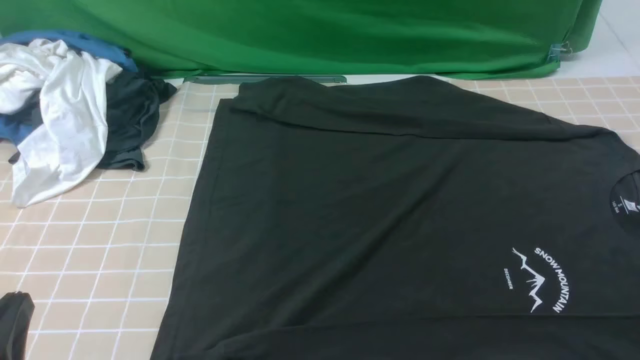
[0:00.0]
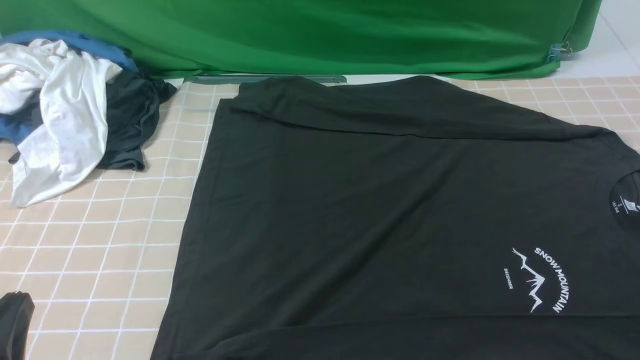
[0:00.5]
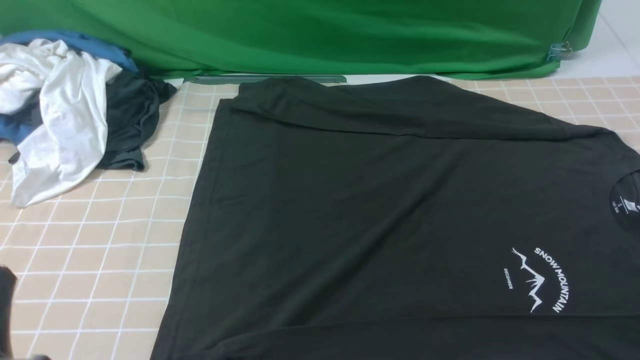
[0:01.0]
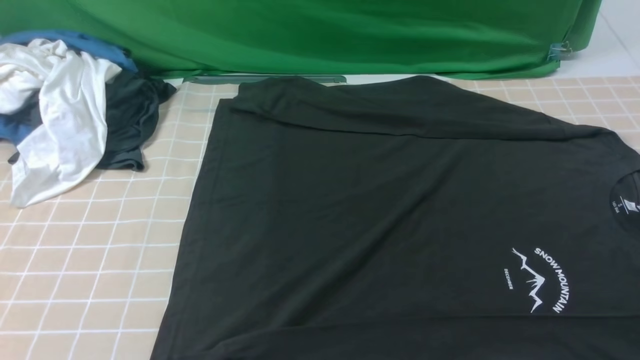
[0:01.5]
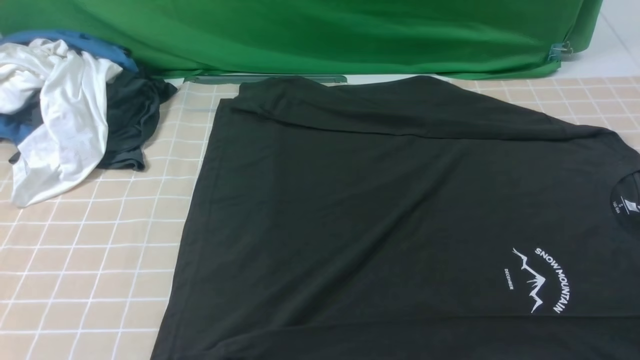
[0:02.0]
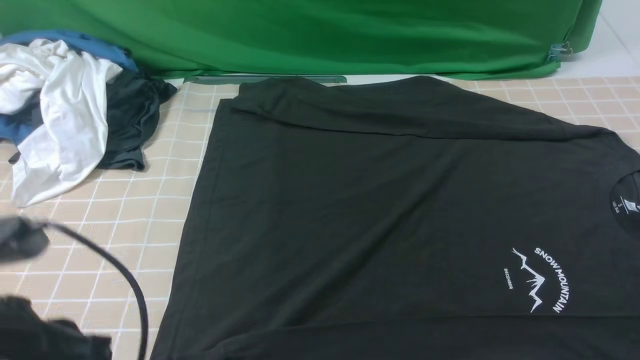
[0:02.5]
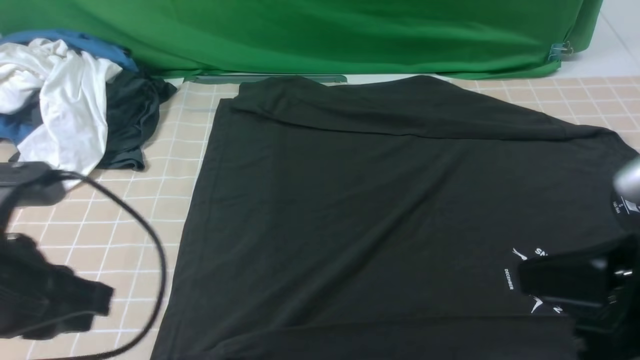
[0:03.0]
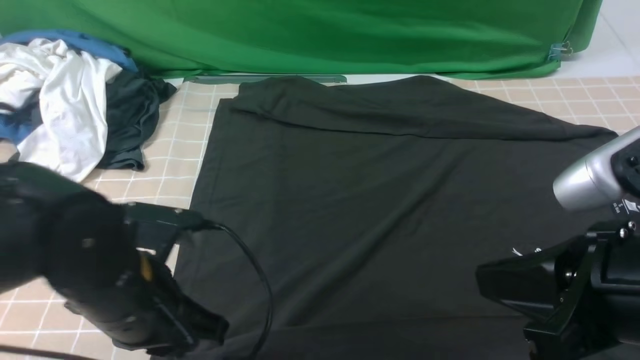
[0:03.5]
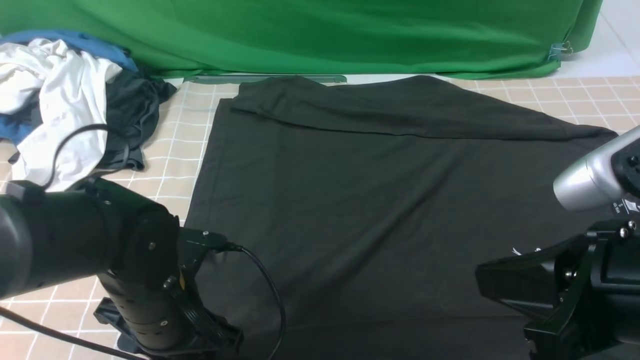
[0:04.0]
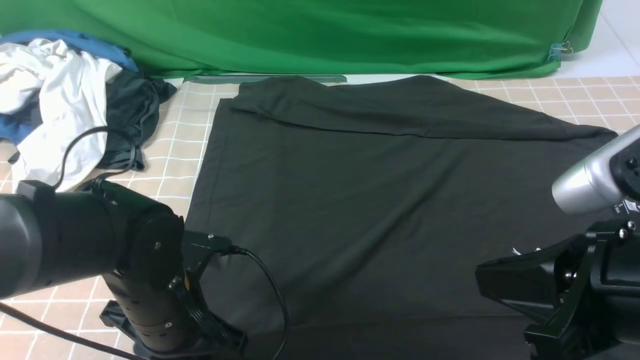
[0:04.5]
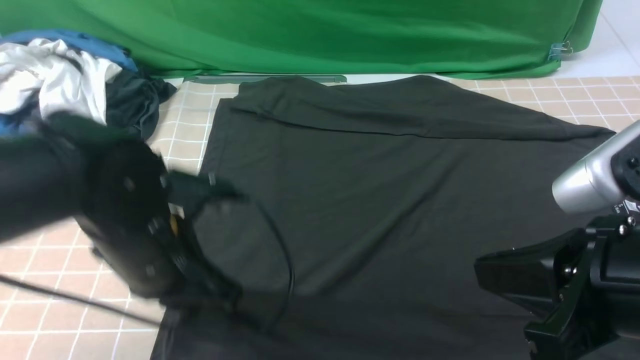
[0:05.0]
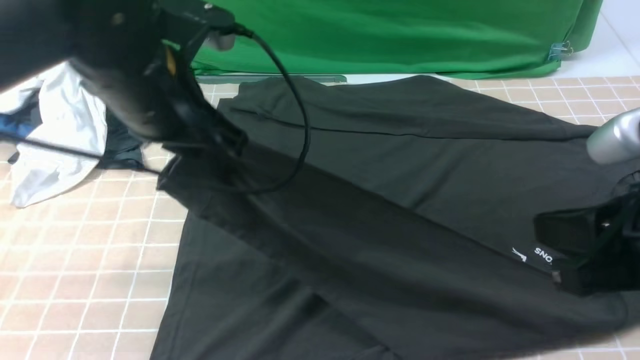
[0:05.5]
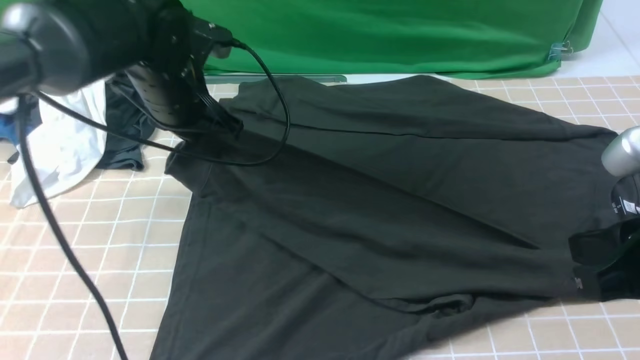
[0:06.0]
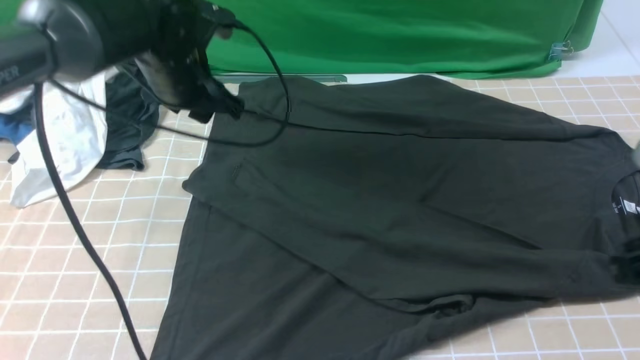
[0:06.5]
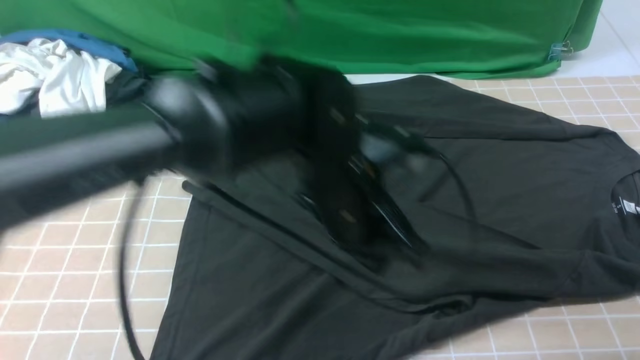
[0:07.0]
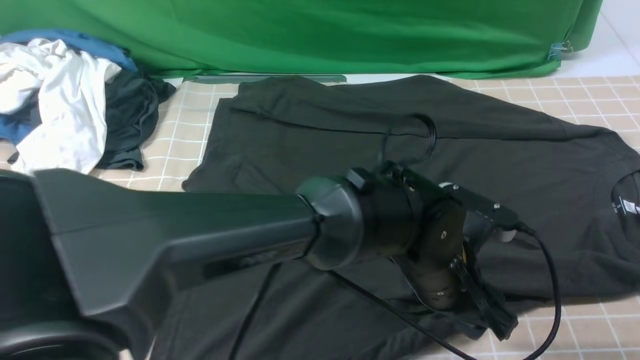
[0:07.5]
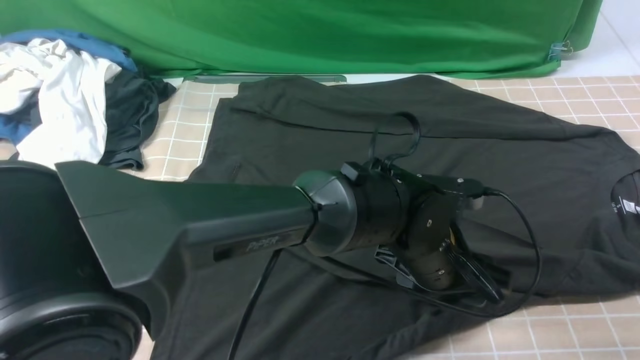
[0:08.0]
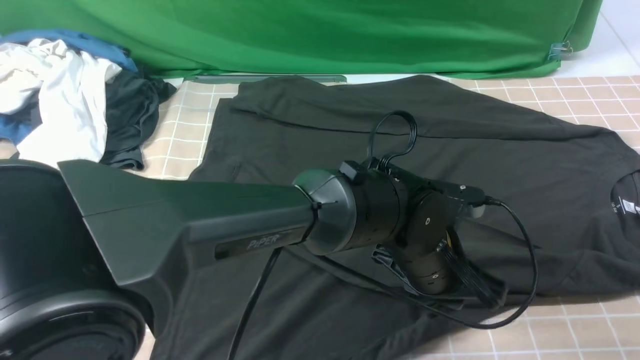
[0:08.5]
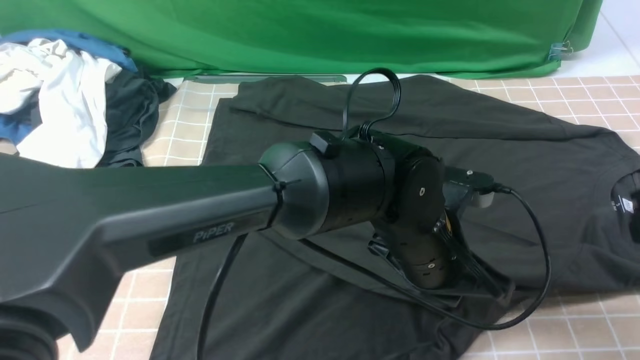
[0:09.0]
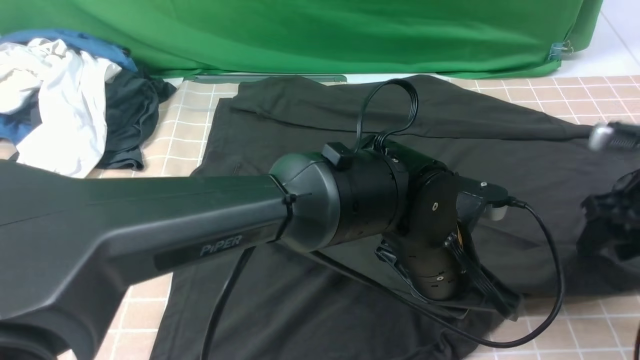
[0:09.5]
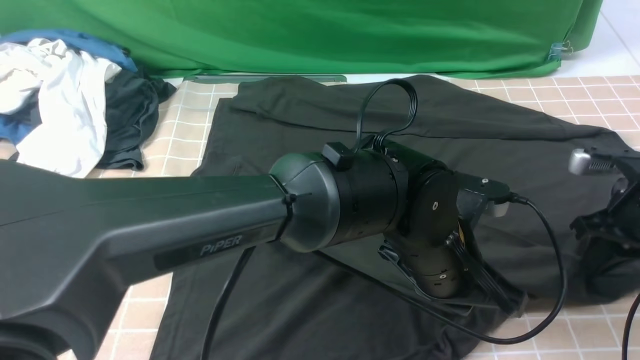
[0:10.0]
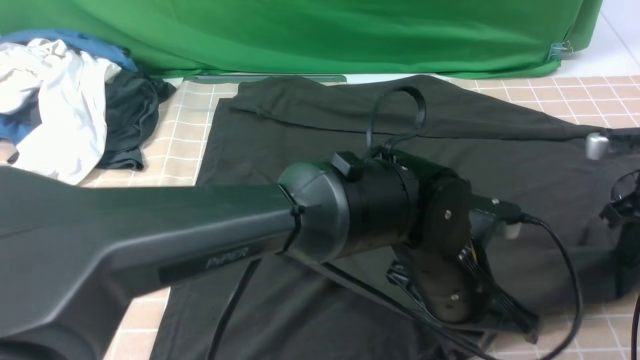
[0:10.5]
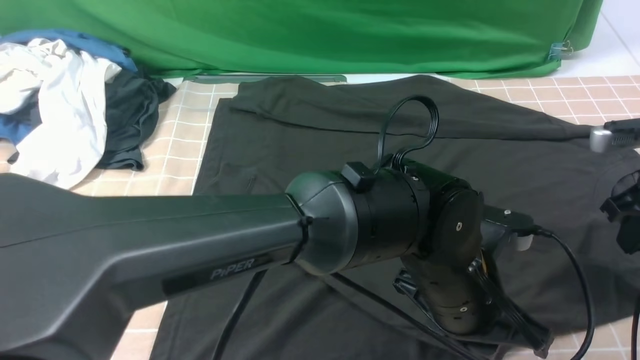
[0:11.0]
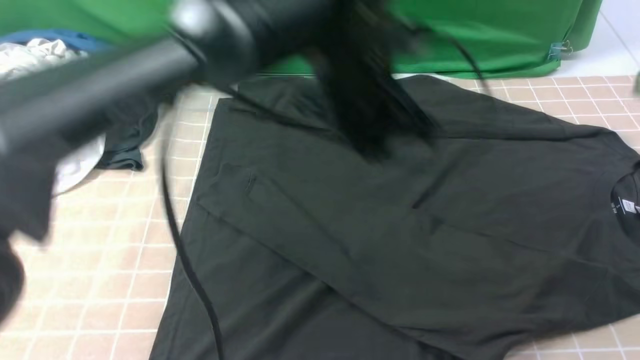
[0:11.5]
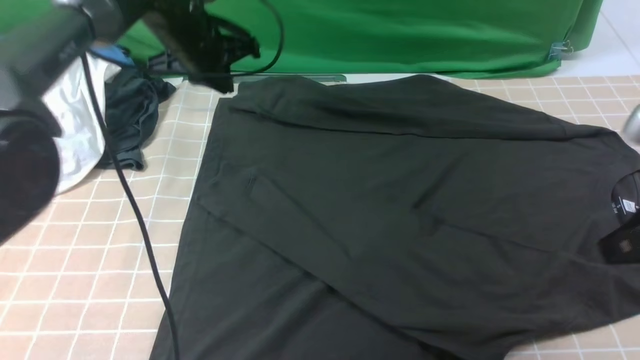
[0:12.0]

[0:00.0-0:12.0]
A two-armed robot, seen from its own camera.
Step, 0:00.0 to 0:04.5: use the left arm to clamp the cuff closest to it.
Step, 0:05.0 to 0:06.0: use the left arm to drag and place the cuff at the centered position on the left edge of the fabric.
0:00.0 to 0:02.0: The left gripper is displaced upward by some 20 cm.
0:02.0 to 0:04.0: The right gripper moves to the left, upward and forward, some 15 cm, and closes its fingers; the left gripper goes some 25 cm downward, forward and to the right, and opens its fingers.
0:04.0 to 0:06.0: The left gripper heads forward and upward, covering roughly 20 cm, and closes its fingers, while the right gripper ends up some 5 cm from where it was.
0:06.0 to 0:08.0: The left gripper shifts roughly 30 cm to the right, backward and downward, and opens. The right gripper moves to the right and forward, approximately 10 cm.
0:08.0 to 0:10.0: The right gripper moves forward and downward, about 15 cm, and opens, then closes once more; the left gripper closes its fingers.
0:10.0 to 0:12.0: The left gripper moves forward and to the left, about 35 cm, while the right gripper goes roughly 20 cm upward, backward and to the left.

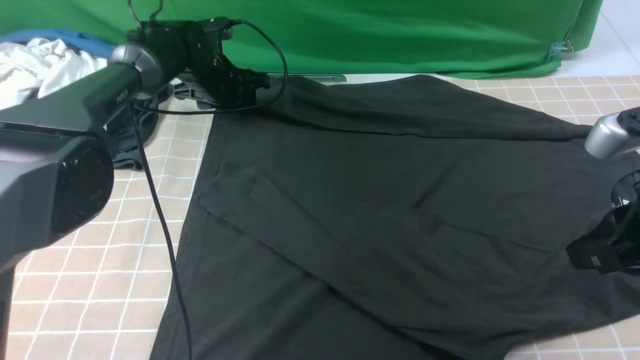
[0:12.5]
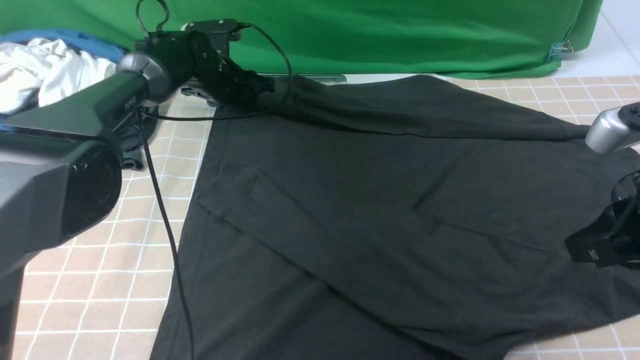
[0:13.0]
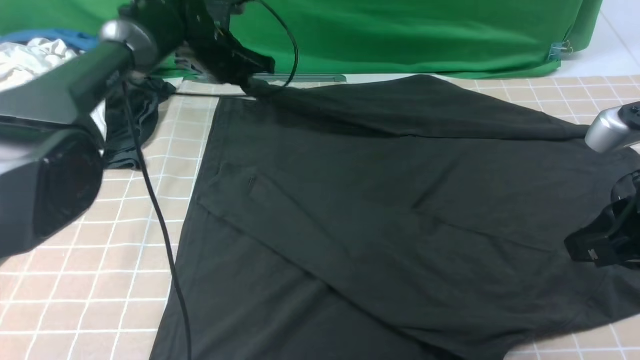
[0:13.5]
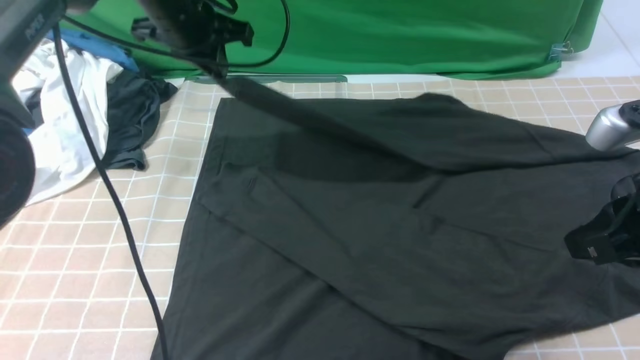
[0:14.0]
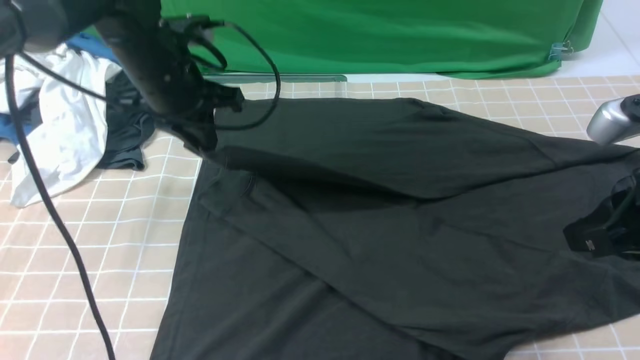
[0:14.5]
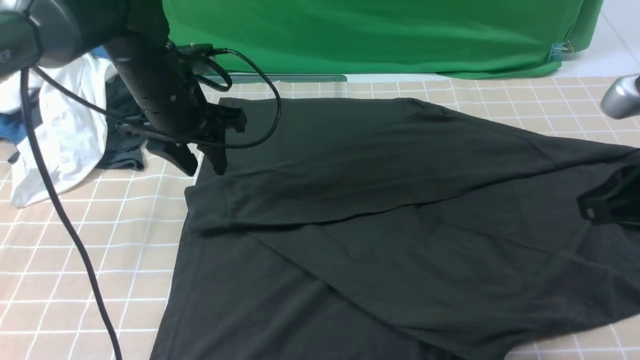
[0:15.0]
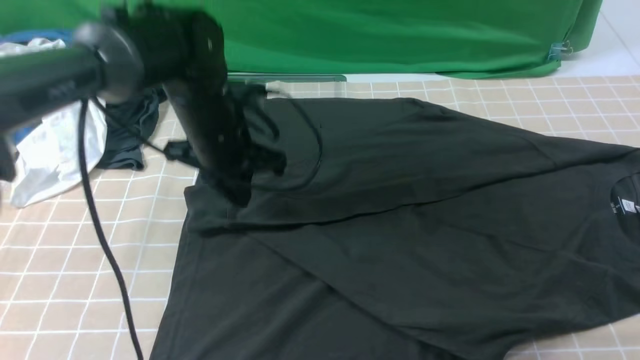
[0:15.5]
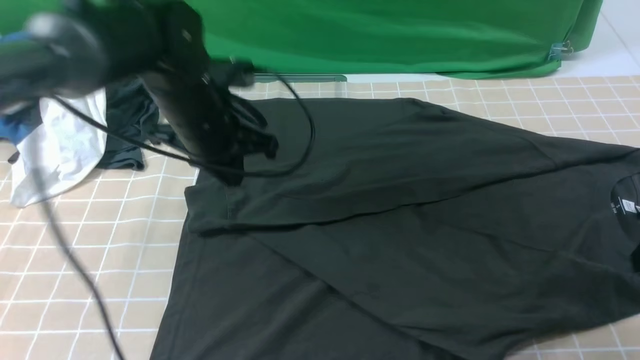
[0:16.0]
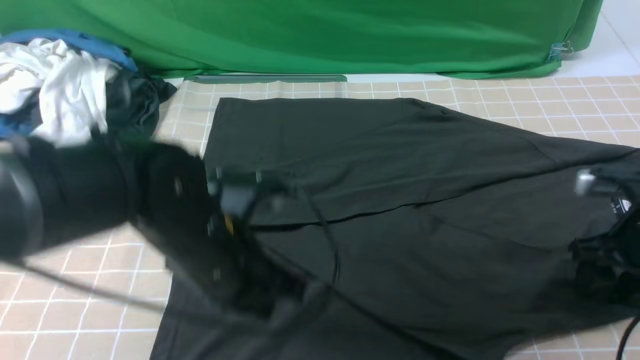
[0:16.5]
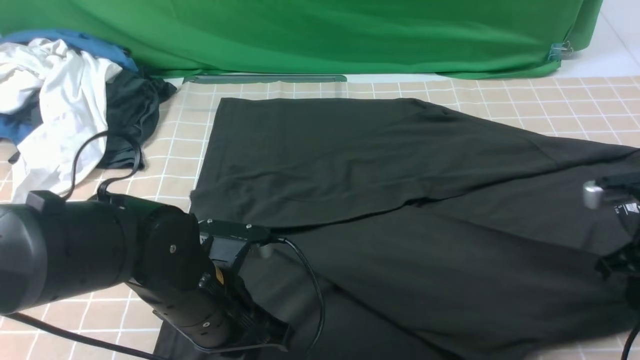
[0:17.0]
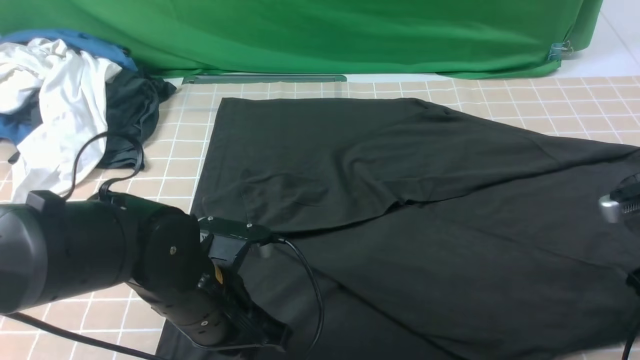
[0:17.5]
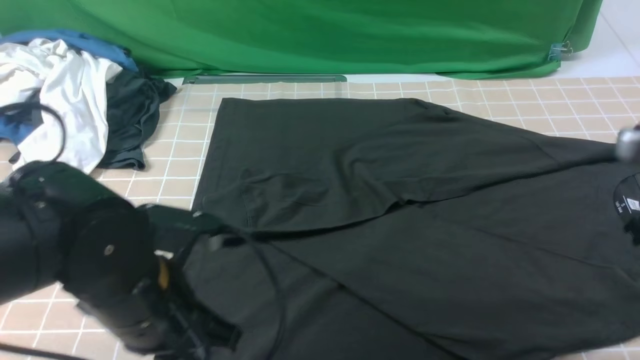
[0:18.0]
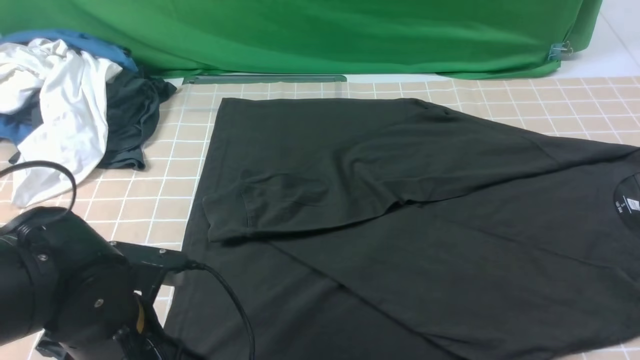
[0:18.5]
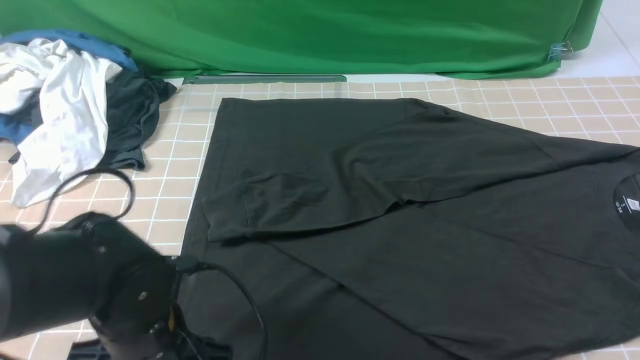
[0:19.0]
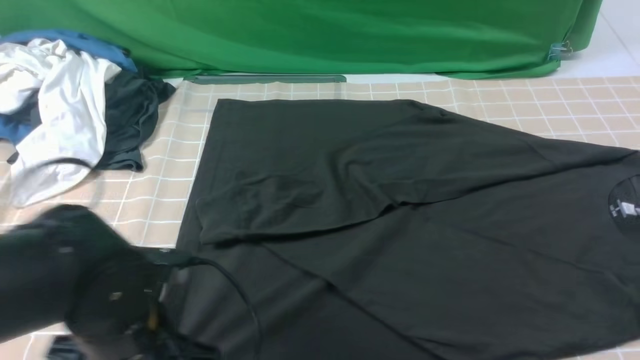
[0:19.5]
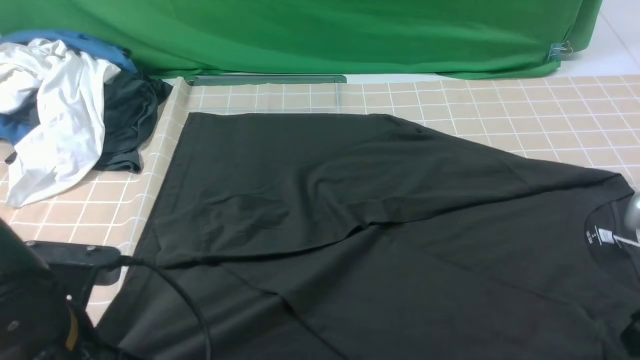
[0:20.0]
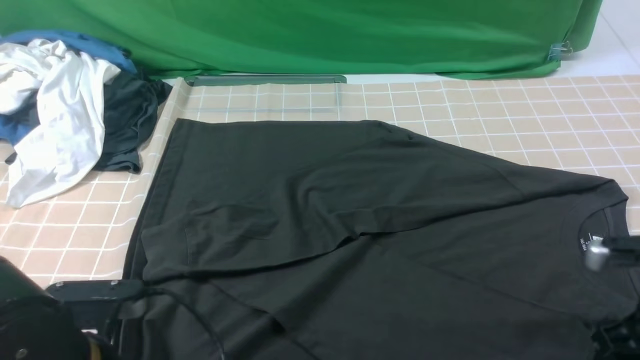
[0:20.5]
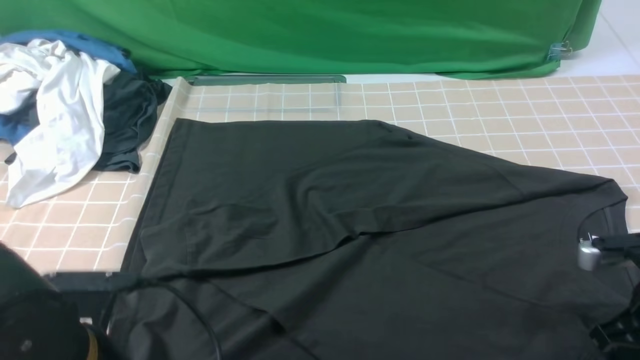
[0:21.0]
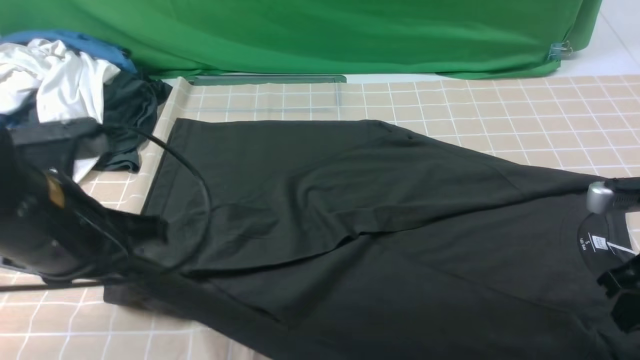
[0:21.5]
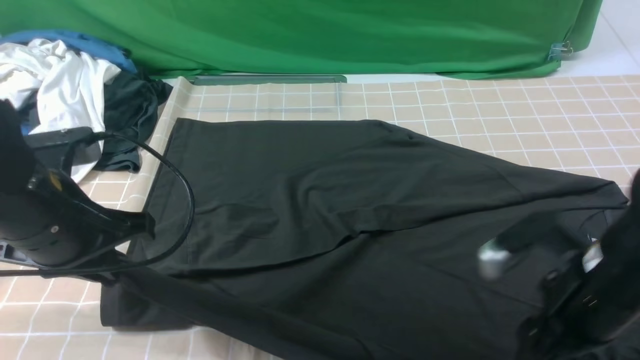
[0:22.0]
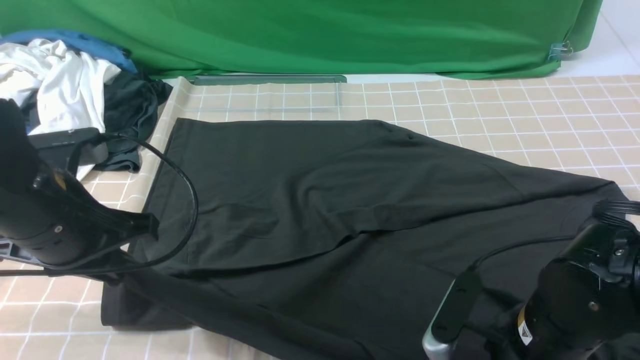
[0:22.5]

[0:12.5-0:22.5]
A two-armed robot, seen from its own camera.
Step, 0:13.5 to 0:15.0: use the left arm to drag and drop the cuff onto the cuff closest to the left arm.
0:12.5 to 0:14.5: The left gripper moves backward and upward, some 15 cm, and closes up.
0:14.5 to 0:16.5: The left gripper moves backward, approximately 20 cm, and opens, then closes again. Meanwhile the right gripper goes about 15 cm downward, forward and to the right, and opens up.
0:16.5 to 0:18.5: The right gripper goes approximately 20 cm upward and backward, and closes; the left gripper is displaced backward and to the left by about 10 cm, and opens.
0:18.5 to 0:20.5: The left gripper closes; the right gripper moves downward, some 15 cm, and opens its fingers.
0:20.5 to 0:22.5: The left gripper moves forward and upward, roughly 10 cm, while the right gripper heads to the left, covering some 15 cm, and closes, then reopens.
